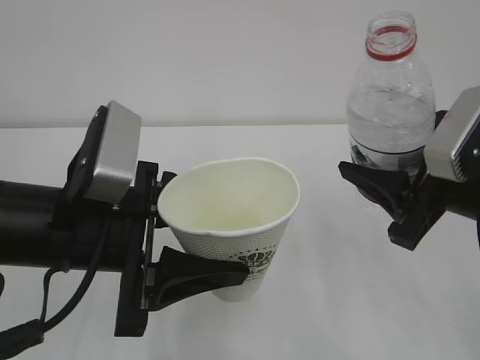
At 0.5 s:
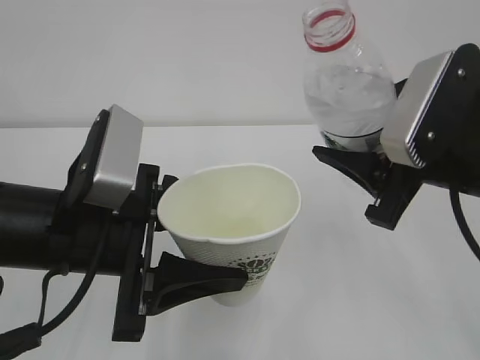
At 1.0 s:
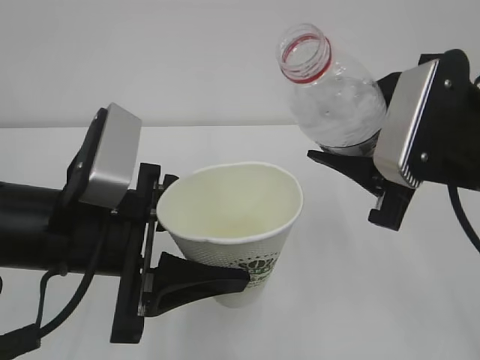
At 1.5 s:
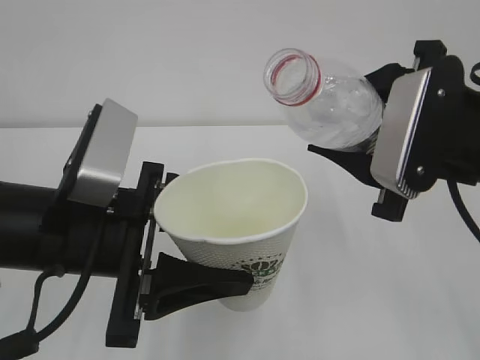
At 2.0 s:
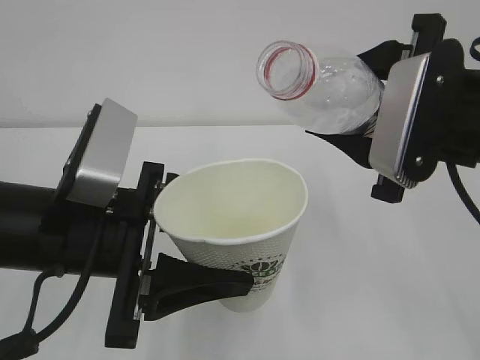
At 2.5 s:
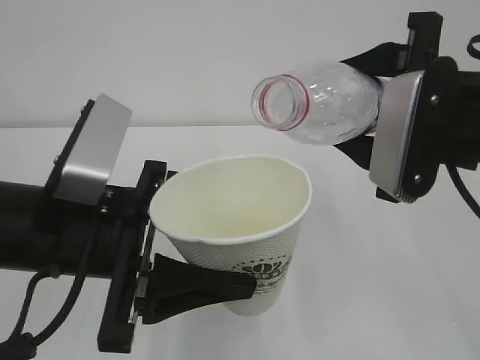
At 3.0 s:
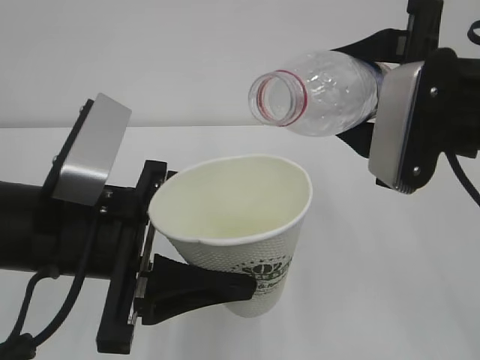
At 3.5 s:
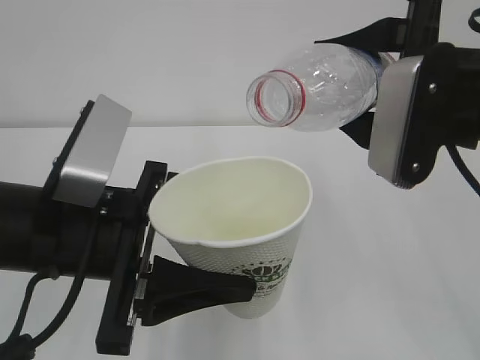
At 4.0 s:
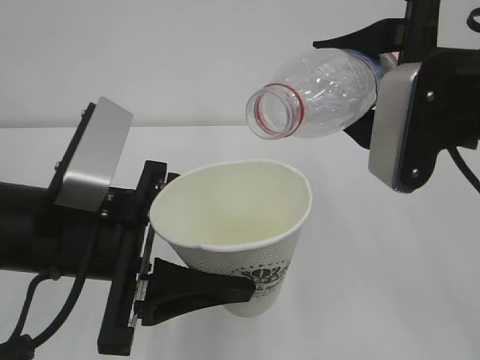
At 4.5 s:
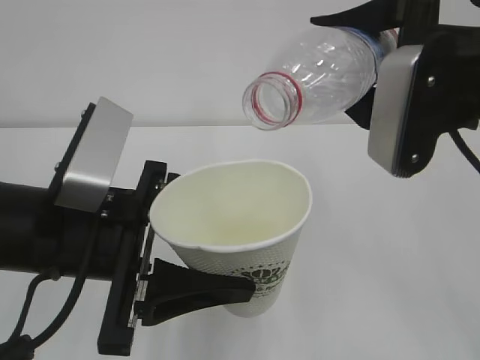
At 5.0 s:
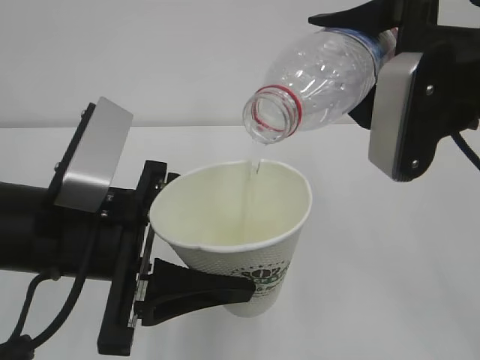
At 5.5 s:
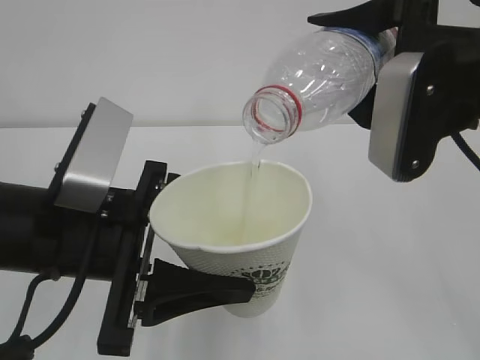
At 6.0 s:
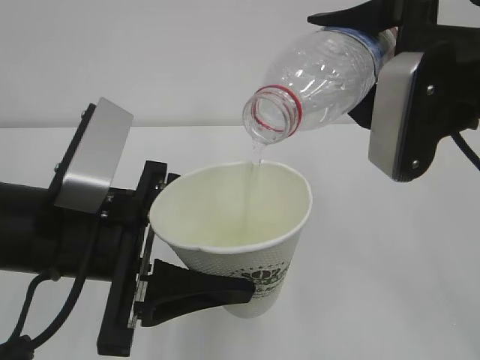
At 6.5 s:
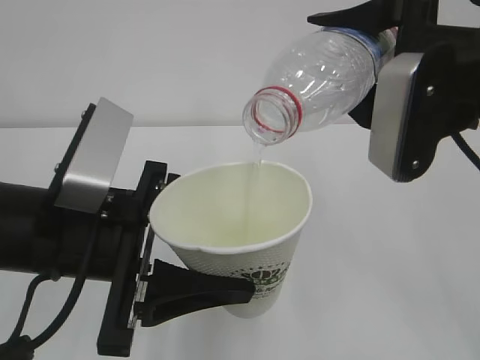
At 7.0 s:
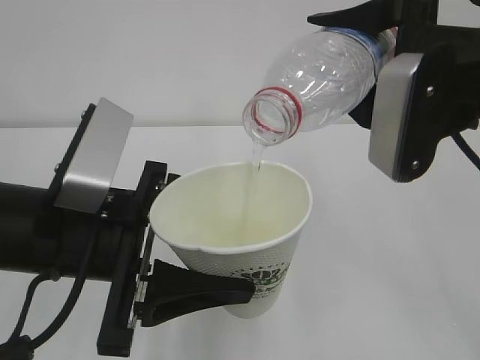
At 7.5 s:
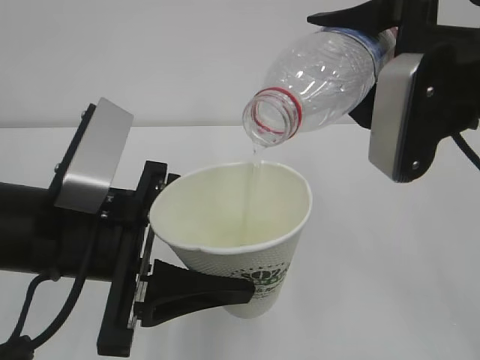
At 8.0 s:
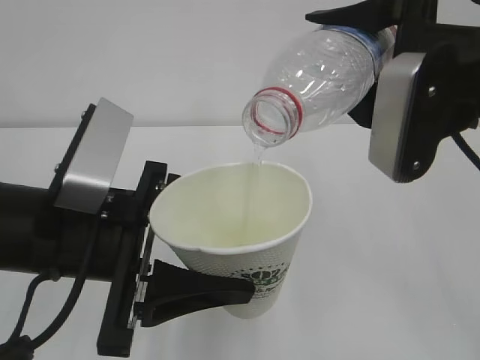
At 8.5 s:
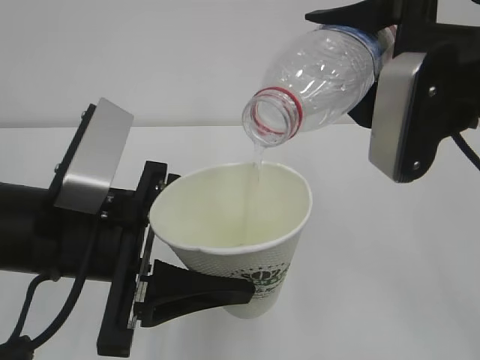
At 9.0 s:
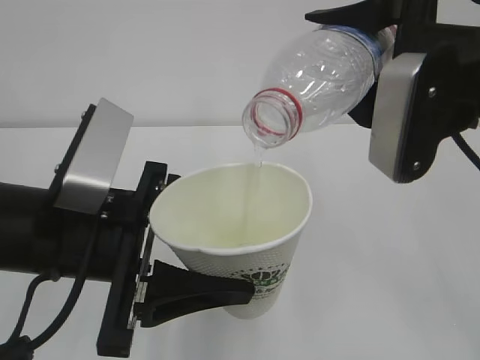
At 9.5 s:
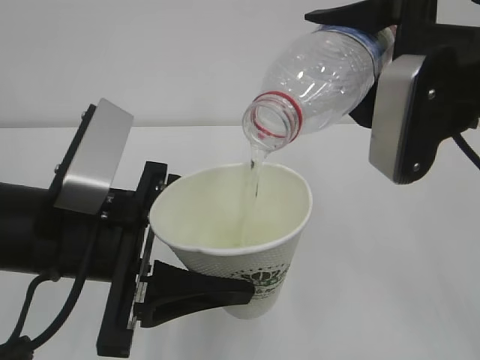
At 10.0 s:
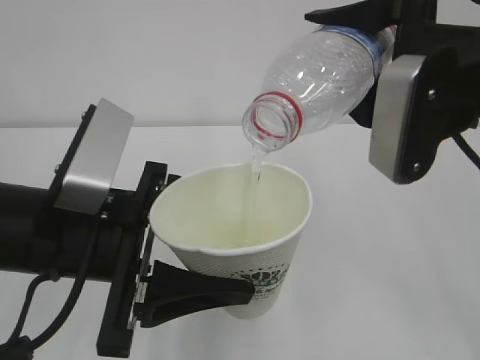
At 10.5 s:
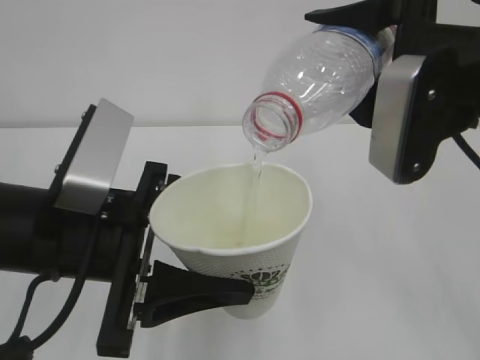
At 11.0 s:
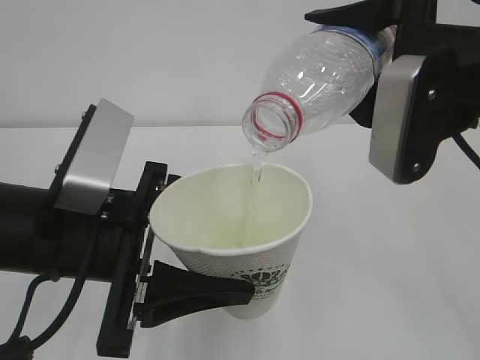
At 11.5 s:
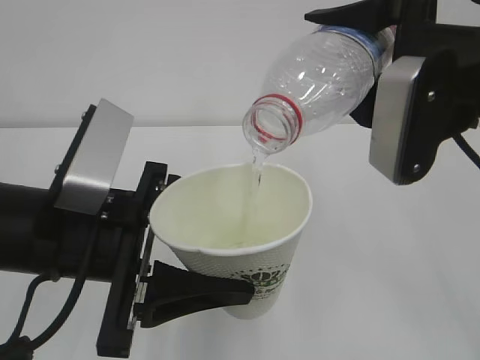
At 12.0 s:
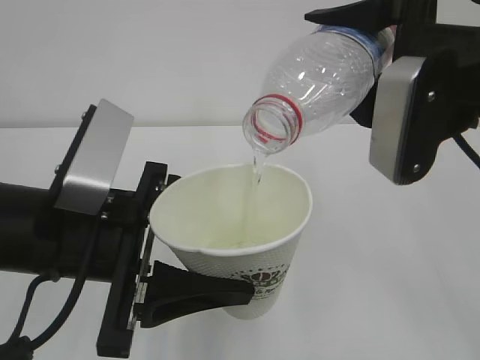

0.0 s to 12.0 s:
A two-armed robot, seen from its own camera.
0.0 to 2.0 s: The right gripper travels upward by about 5 cm.
2.0 to 4.0 s: The grippers make only small movements.
4.0 to 6.0 s: The grippers make only small movements.
6.0 to 12.0 s: Both grippers stay put.

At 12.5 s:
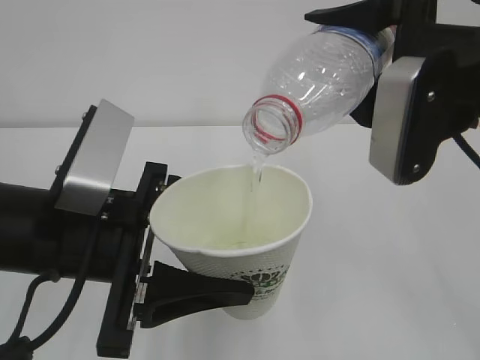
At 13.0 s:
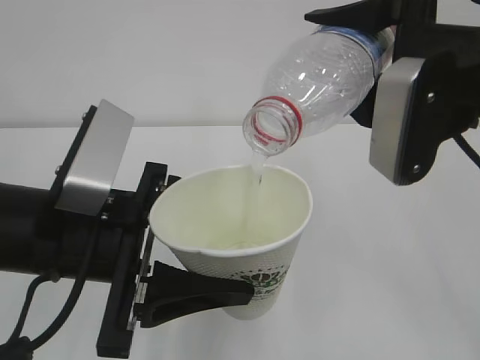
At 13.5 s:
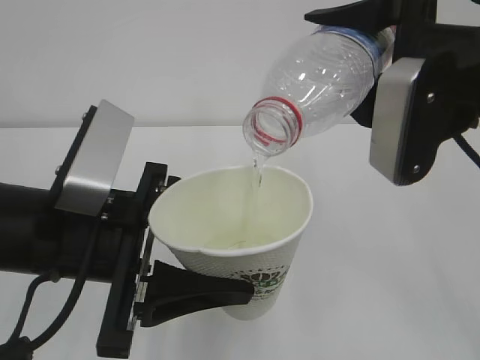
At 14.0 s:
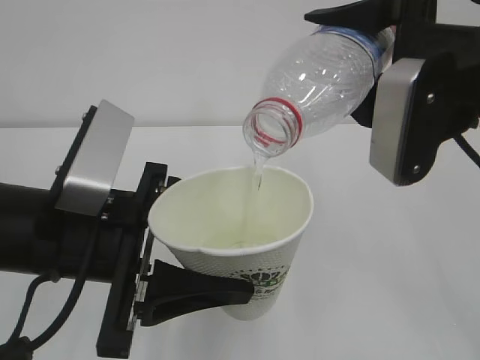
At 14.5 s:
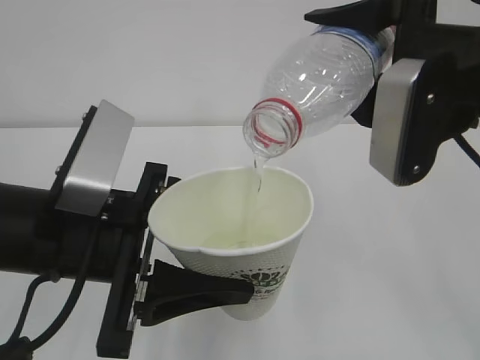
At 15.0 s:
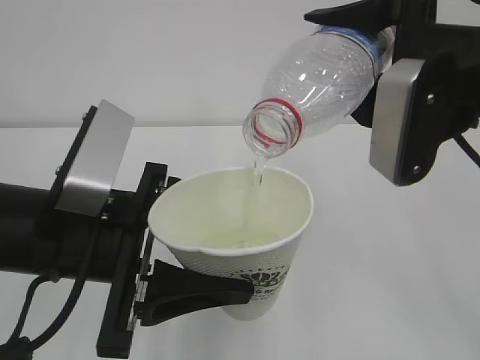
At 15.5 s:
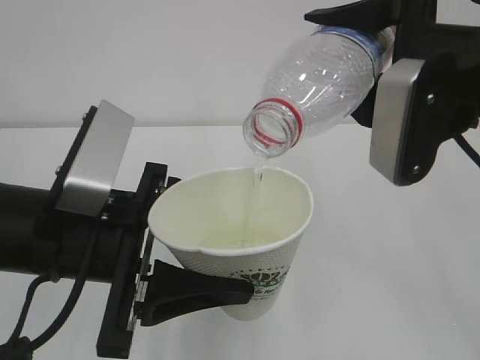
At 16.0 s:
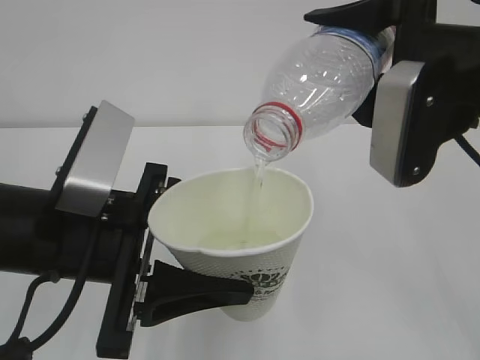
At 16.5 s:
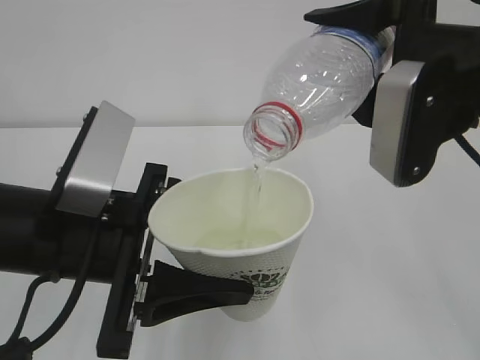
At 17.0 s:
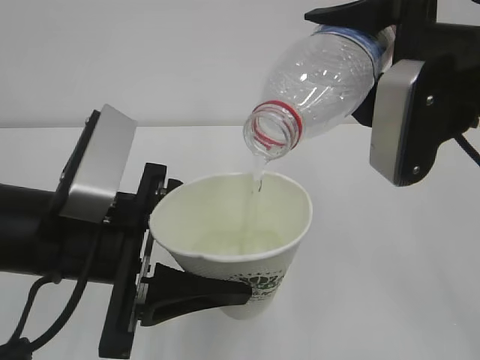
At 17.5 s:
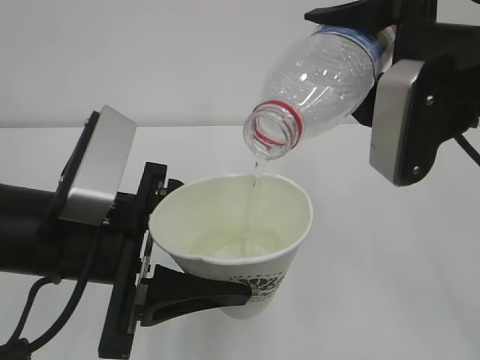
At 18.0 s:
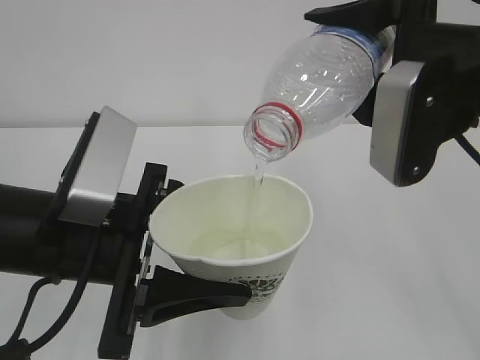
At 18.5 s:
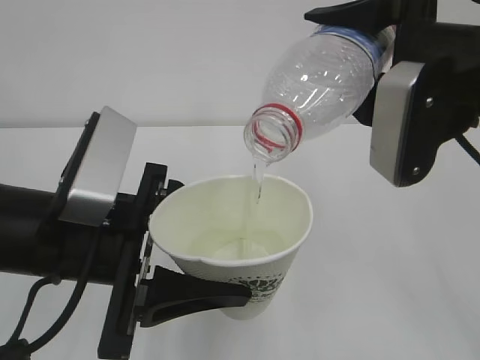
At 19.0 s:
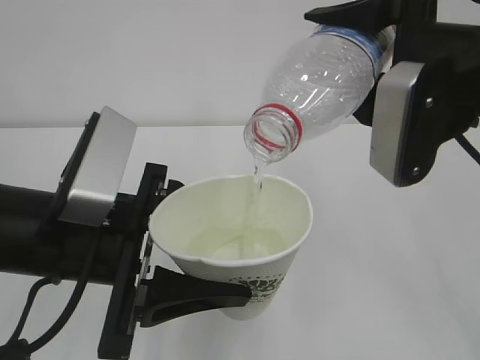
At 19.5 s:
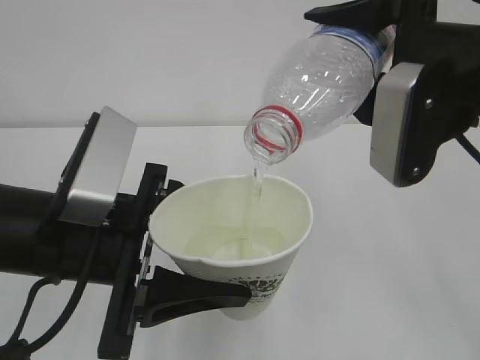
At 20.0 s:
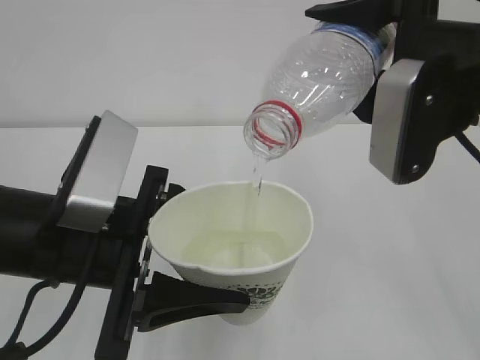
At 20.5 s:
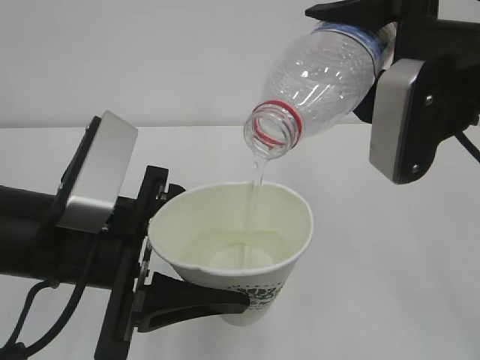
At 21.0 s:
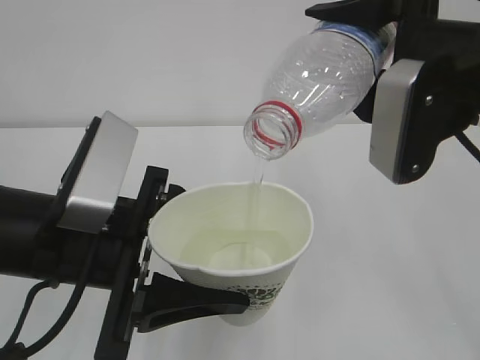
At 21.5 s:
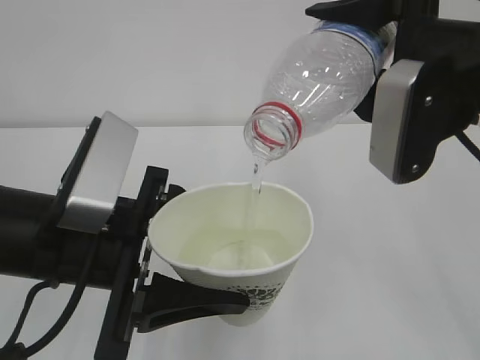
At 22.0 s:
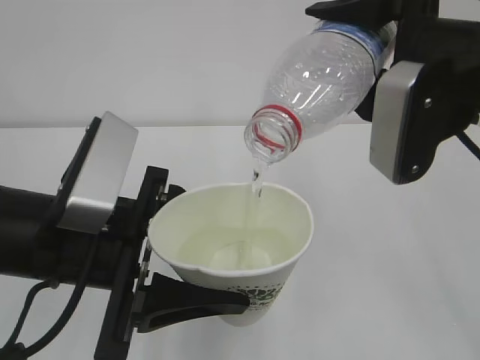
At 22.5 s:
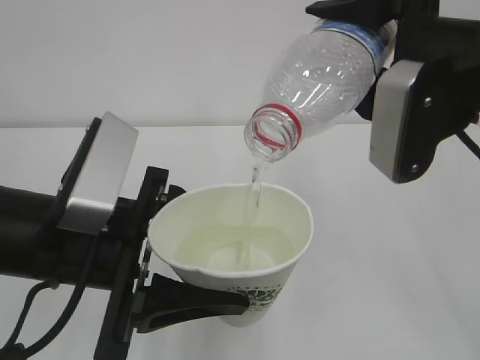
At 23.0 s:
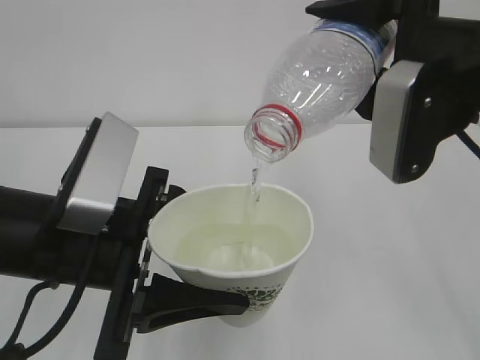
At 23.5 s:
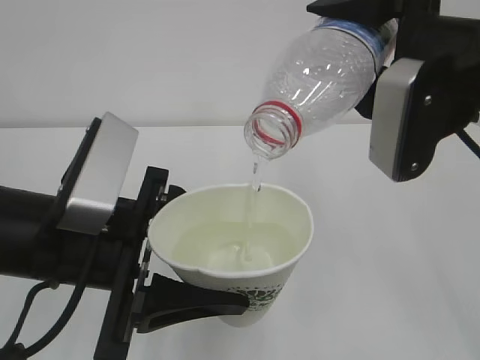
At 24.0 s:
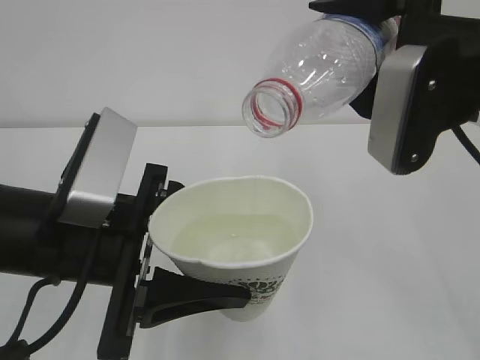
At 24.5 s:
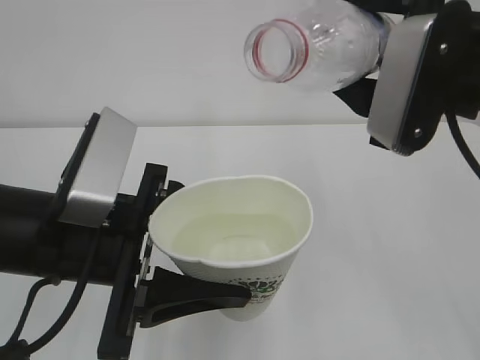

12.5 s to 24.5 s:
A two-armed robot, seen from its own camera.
12.5 to 20.5 s: Both grippers stay about where they are.
20.5 to 22.5 s: Neither gripper changes place.
22.5 to 24.5 s: The grippers stay close to where they were, moving slightly.

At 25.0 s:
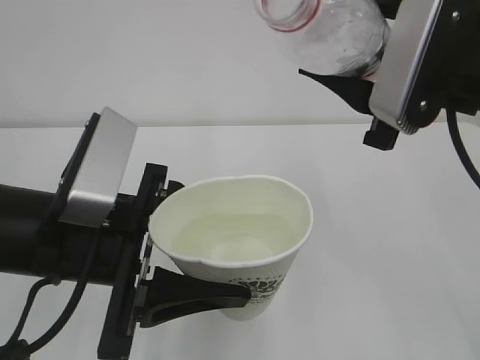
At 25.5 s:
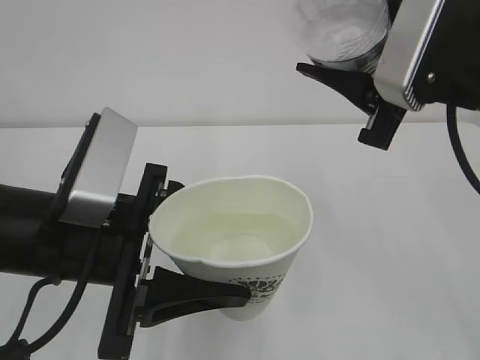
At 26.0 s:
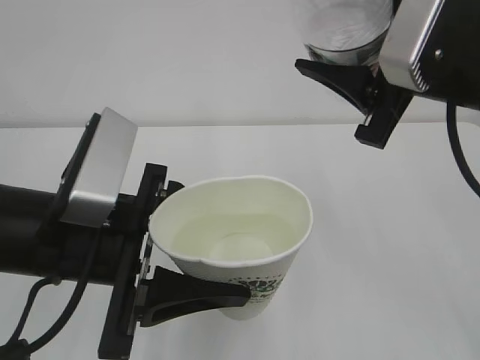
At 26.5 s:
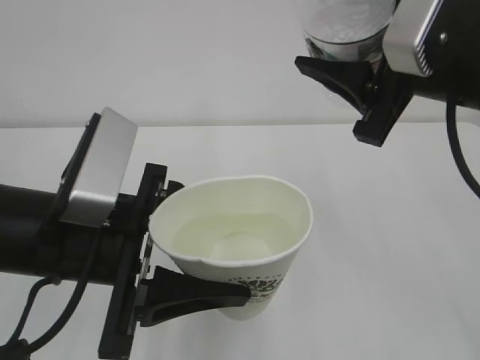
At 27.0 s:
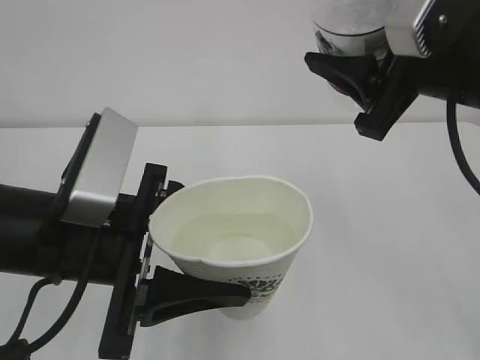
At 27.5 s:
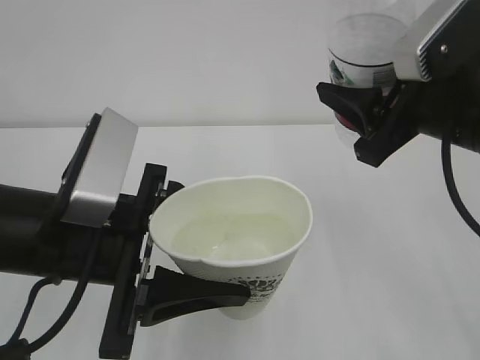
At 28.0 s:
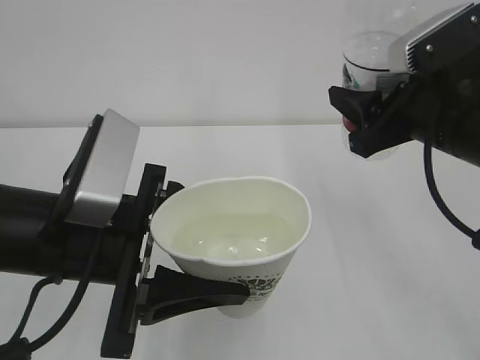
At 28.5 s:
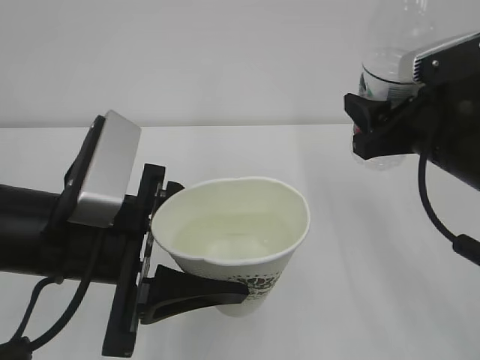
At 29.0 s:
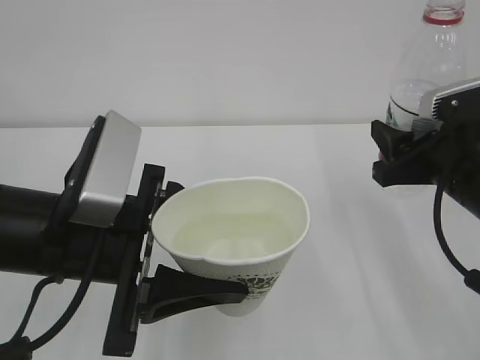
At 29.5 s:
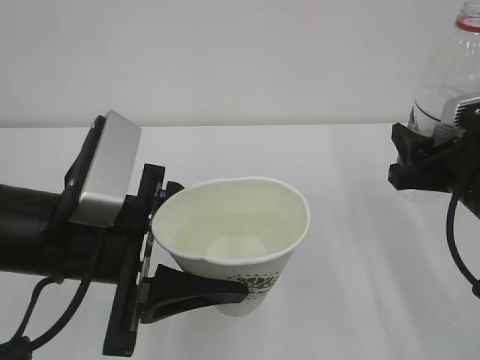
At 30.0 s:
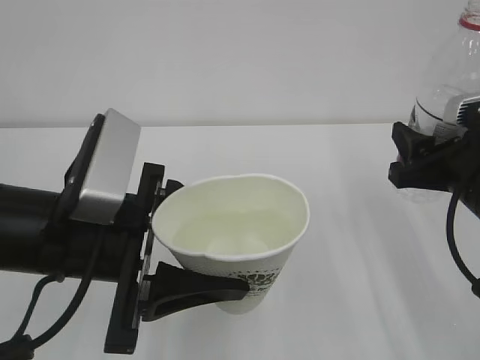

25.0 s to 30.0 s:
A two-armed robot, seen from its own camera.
27.5 to 30.0 s: The right gripper heads downward, covering approximately 10 cm.
